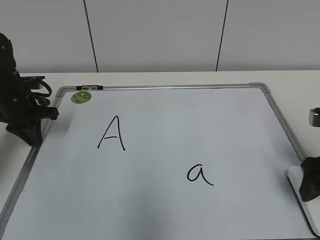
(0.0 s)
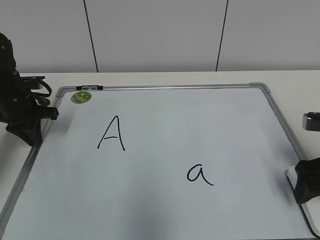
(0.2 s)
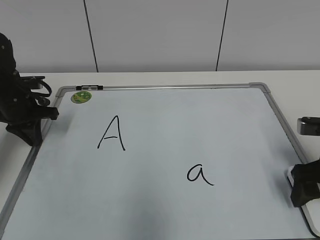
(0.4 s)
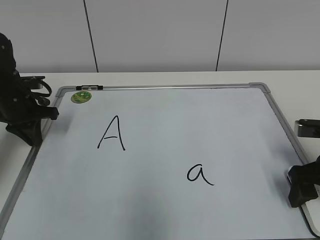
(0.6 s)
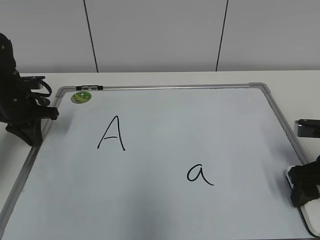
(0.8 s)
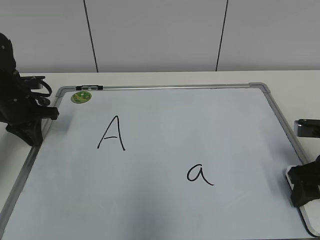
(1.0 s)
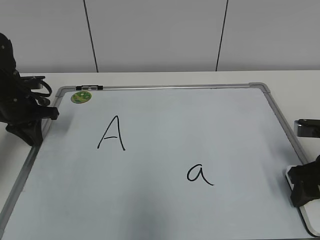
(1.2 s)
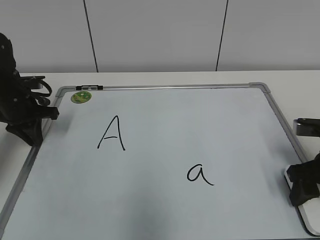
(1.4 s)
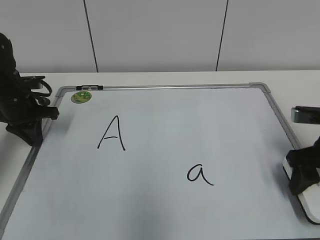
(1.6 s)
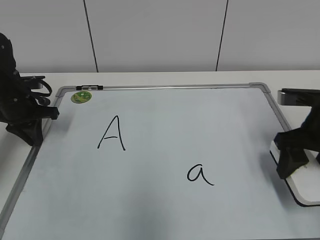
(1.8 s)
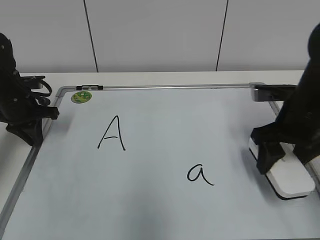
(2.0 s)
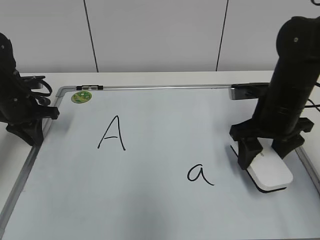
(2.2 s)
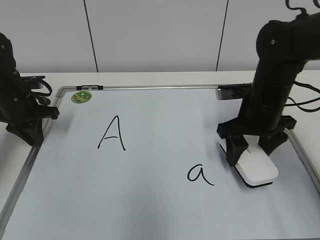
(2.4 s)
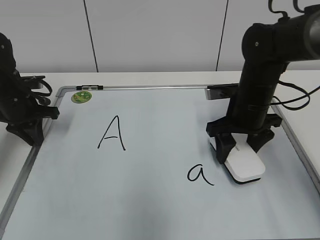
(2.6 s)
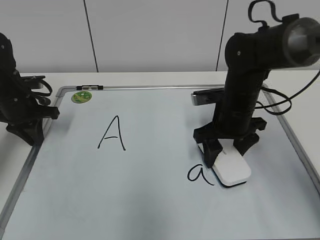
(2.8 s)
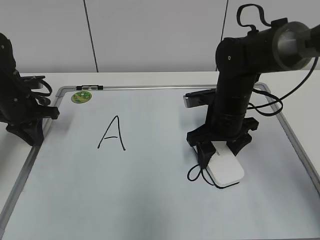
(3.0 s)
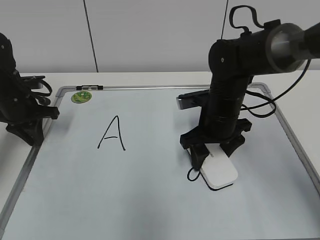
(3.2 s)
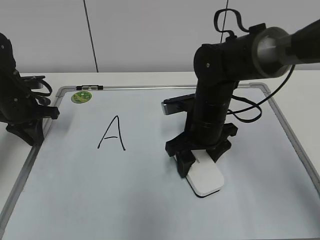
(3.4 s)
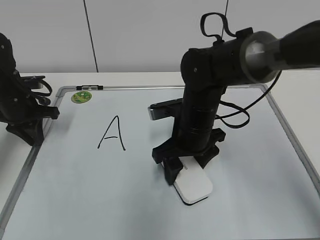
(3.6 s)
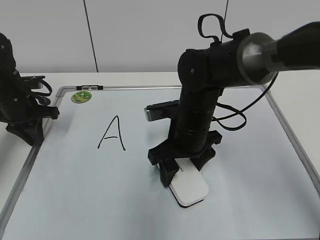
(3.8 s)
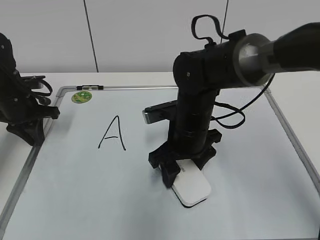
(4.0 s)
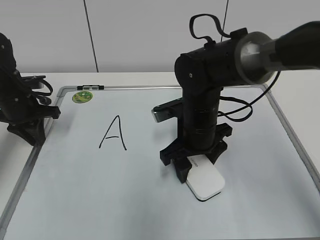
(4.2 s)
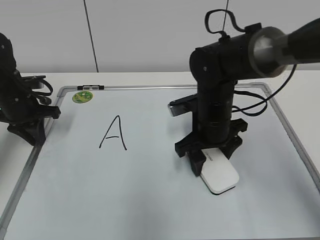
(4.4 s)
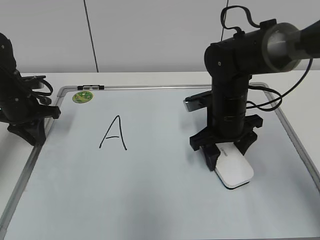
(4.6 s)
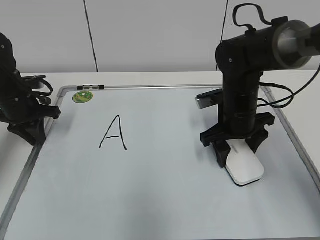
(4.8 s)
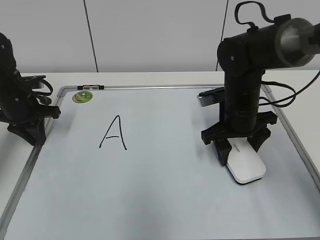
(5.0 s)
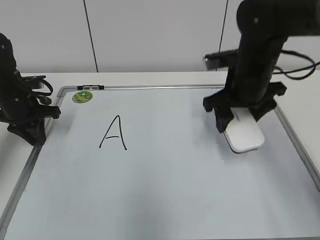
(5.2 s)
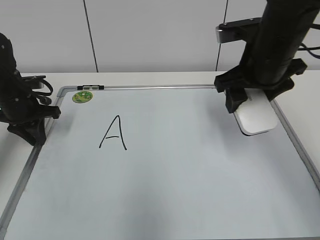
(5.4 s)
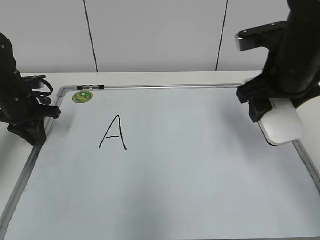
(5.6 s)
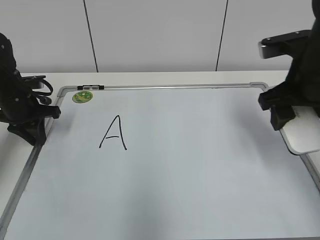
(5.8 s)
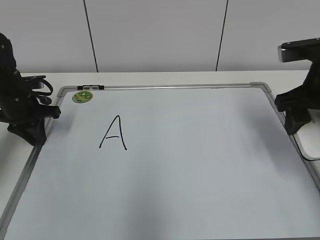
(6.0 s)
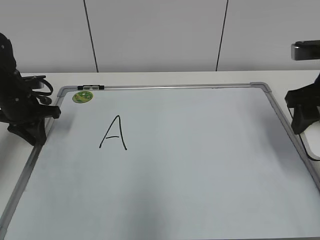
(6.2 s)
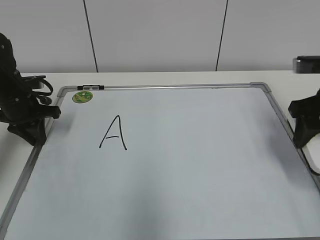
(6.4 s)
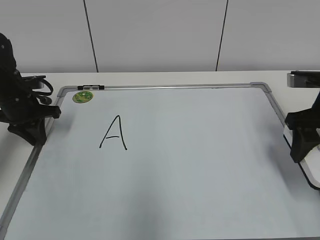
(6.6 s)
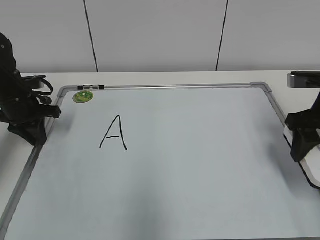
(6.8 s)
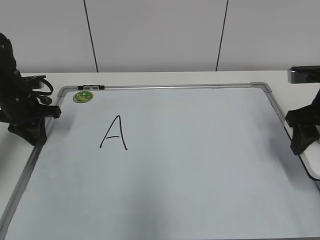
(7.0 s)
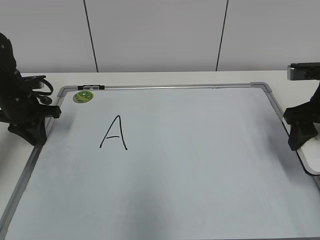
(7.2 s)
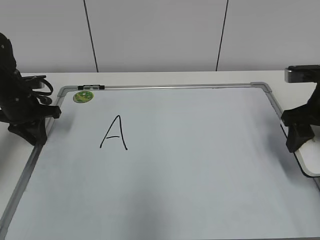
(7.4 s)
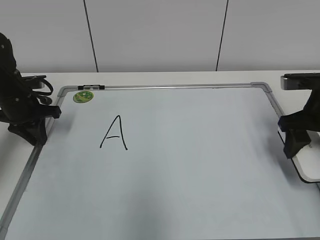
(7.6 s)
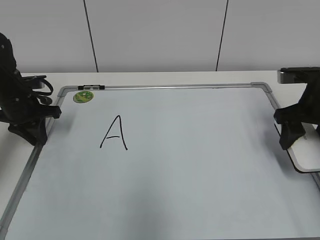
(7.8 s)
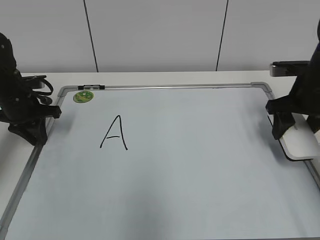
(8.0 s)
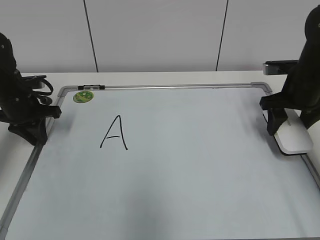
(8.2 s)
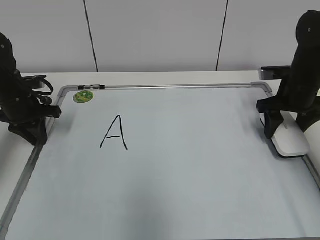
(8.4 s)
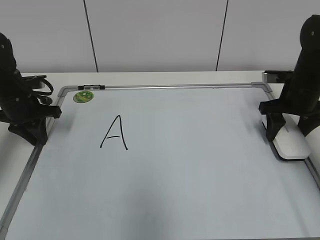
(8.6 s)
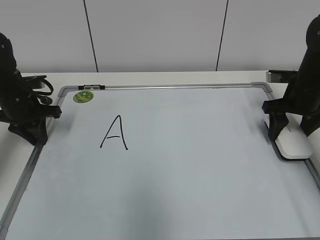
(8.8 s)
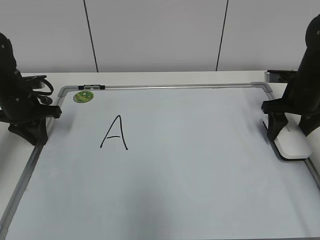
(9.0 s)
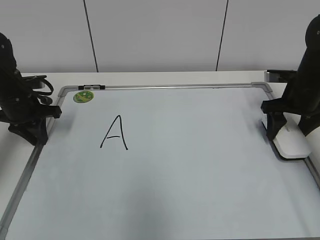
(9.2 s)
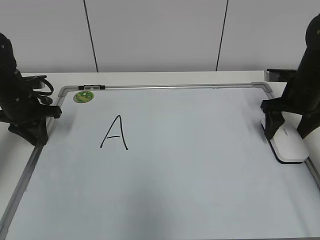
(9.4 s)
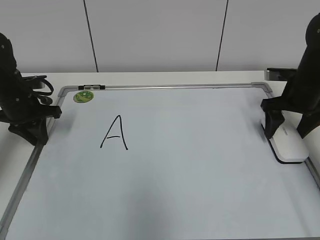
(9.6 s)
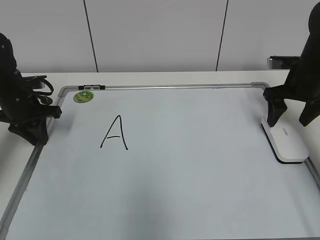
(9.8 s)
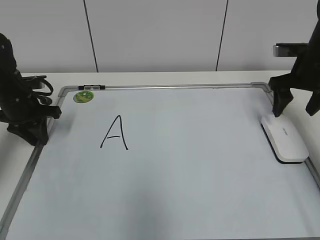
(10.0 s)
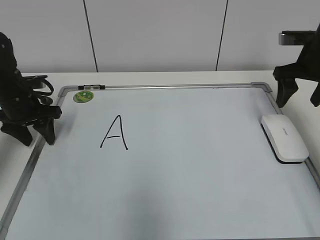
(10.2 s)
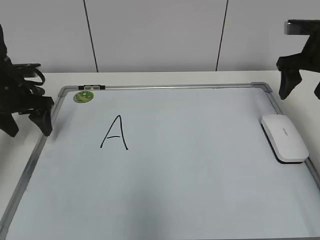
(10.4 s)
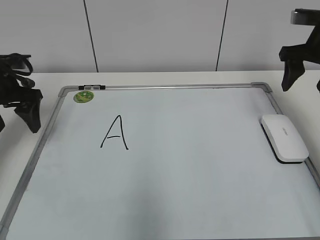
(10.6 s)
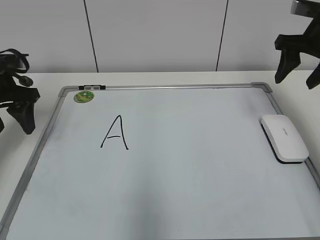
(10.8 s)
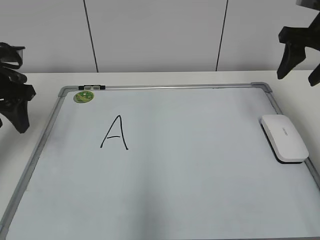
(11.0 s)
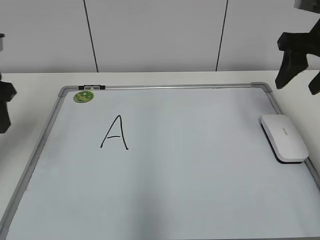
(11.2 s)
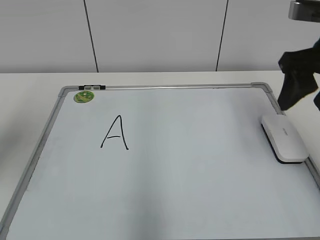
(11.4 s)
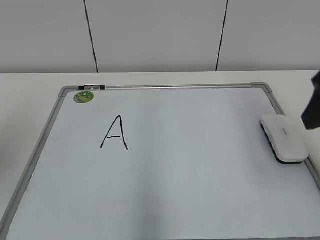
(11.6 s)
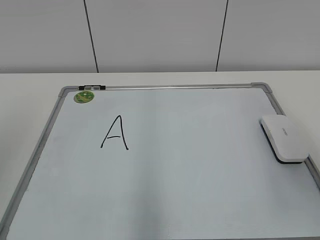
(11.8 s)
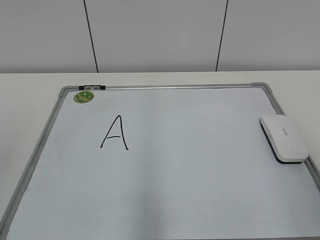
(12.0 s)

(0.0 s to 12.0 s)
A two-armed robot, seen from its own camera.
Task of the whole recording: pick up the eraser on the blackboard and erase the letter "a".
Step, 1.2 s - 4.6 s: Erase the letter a with your right hand.
Step, 4.8 s - 6.4 s: Put down the eraser with your right hand.
Step, 7.2 s - 9.4 s: Put down the eraser with your right hand.
0.0 s - 1.6 s: The right gripper closes up.
1.6 s - 3.0 s: The right gripper goes about 20 cm to the left and forward.
4.4 s - 6.0 s: The right gripper heads to the right and upward, covering about 20 cm.
6.0 s - 7.6 s: The right gripper goes some 5 cm downward.
7.6 s - 9.0 s: The right gripper heads forward, covering about 10 cm.
9.0 s - 10.4 s: The right gripper shifts some 10 cm upward, and opens its fingers. Meanwhile the left gripper opens.
10.4 s - 12.0 s: The left gripper heads backward and upward, covering approximately 35 cm, and closes its fingers, while the right gripper shifts approximately 30 cm backward, and closes.

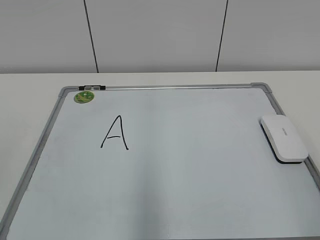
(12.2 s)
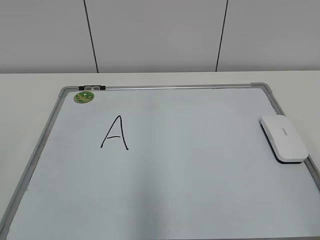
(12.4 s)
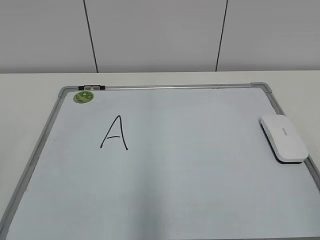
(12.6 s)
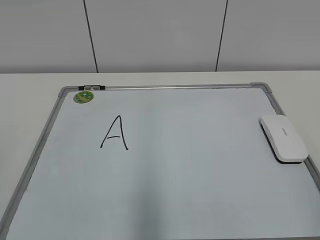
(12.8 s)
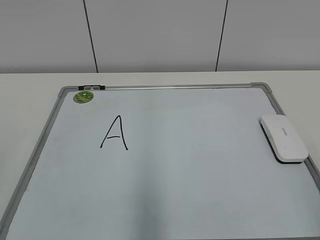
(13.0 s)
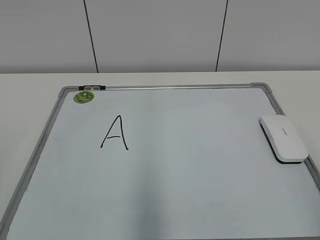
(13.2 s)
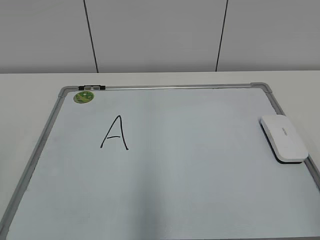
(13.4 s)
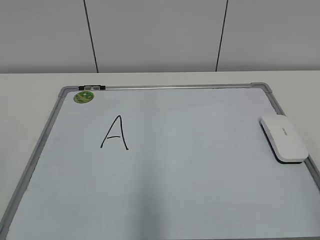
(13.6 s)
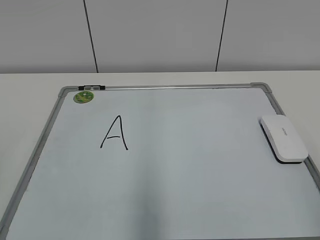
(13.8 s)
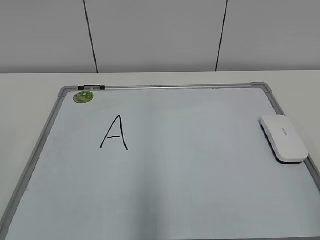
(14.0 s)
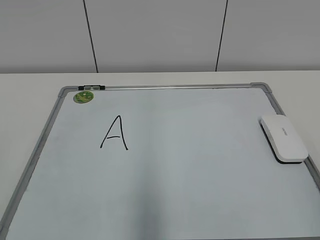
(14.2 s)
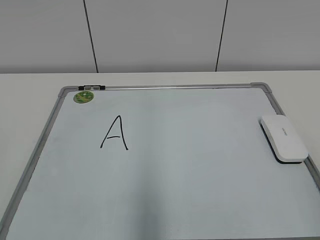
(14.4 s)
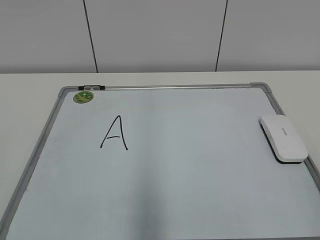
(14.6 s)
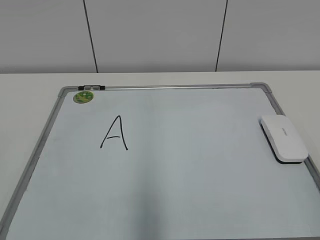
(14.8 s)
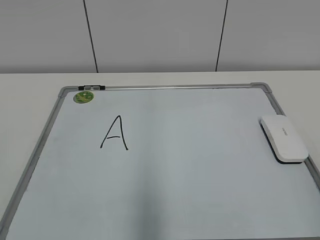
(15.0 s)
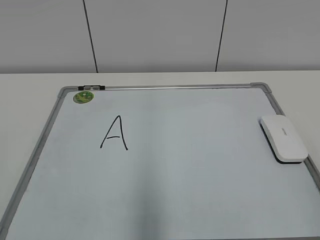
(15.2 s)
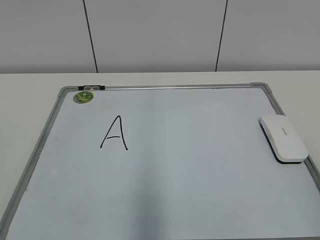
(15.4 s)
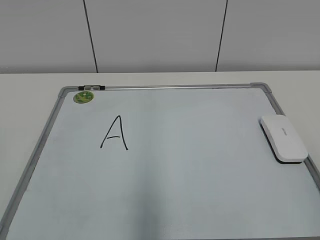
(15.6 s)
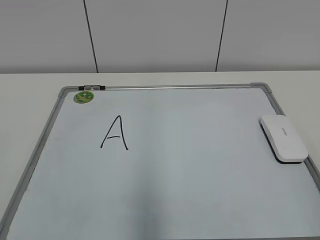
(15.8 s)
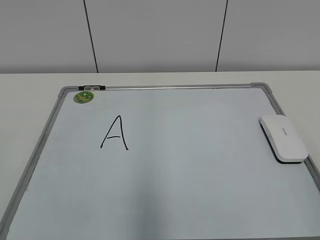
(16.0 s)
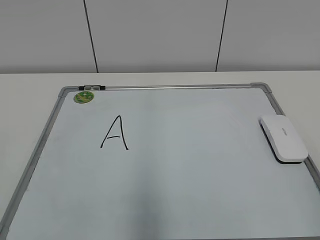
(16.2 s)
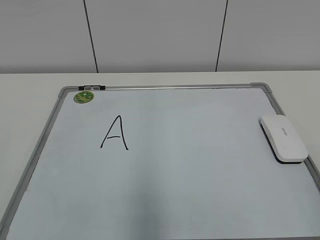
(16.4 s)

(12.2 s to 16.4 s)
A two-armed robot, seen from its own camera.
Task of the whole recording: pick up the eraser on the blackboard and erase the letter "a".
15.0 s - 16.4 s: The two grippers keep their place.

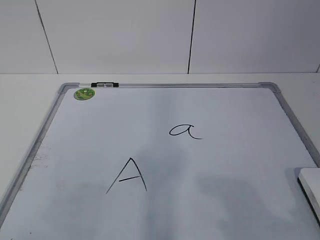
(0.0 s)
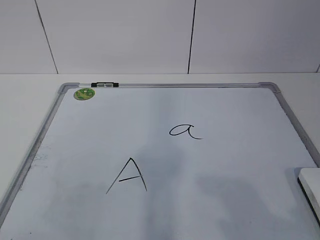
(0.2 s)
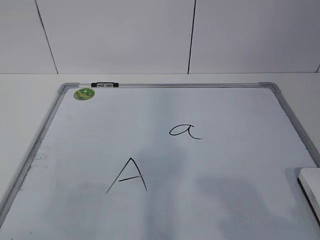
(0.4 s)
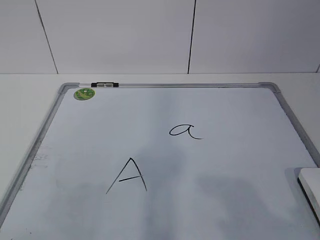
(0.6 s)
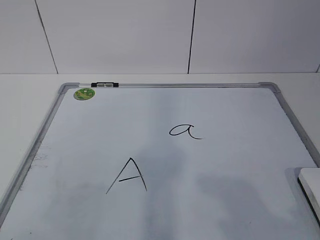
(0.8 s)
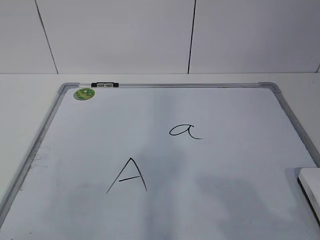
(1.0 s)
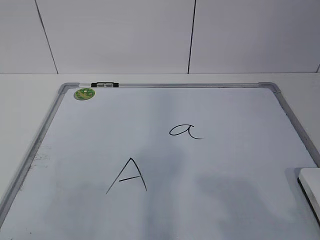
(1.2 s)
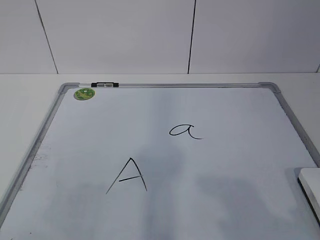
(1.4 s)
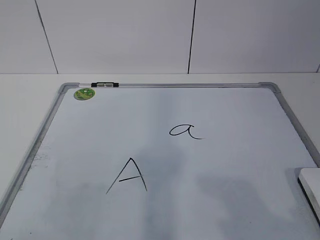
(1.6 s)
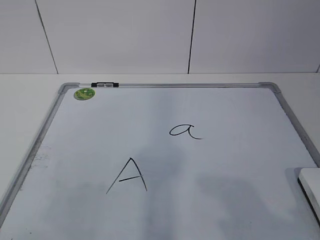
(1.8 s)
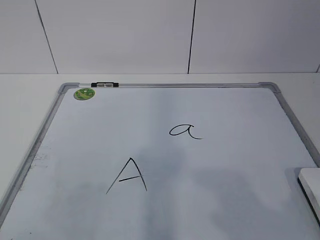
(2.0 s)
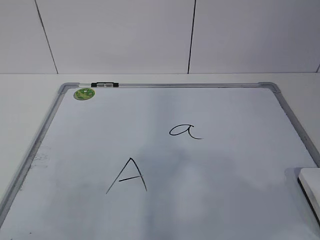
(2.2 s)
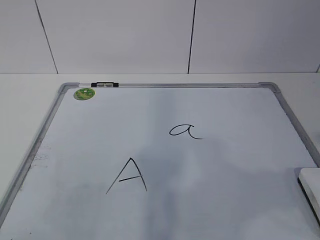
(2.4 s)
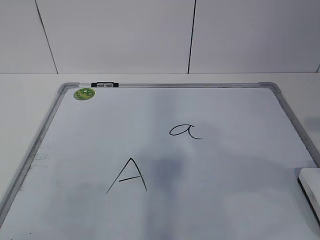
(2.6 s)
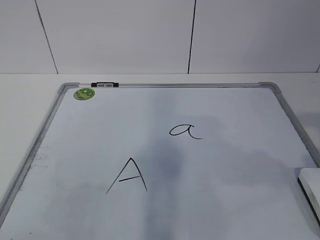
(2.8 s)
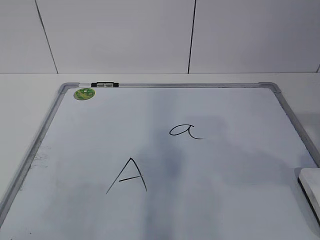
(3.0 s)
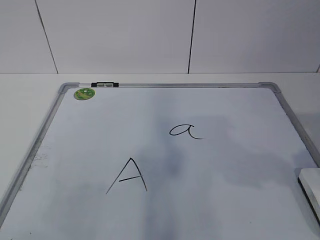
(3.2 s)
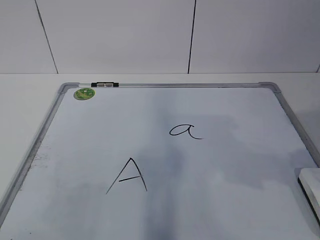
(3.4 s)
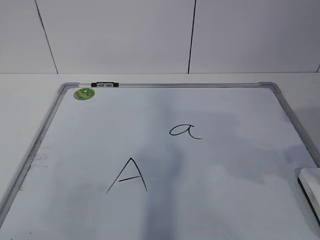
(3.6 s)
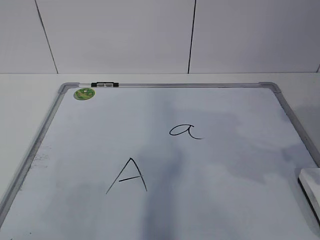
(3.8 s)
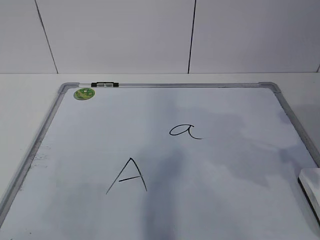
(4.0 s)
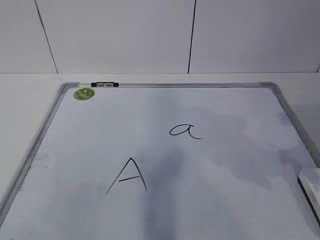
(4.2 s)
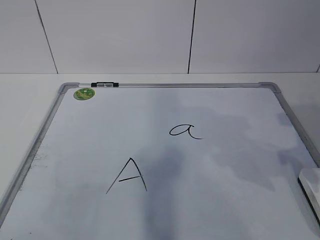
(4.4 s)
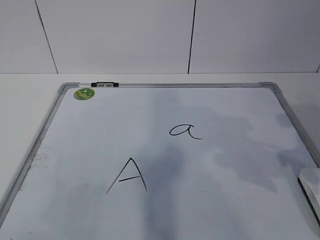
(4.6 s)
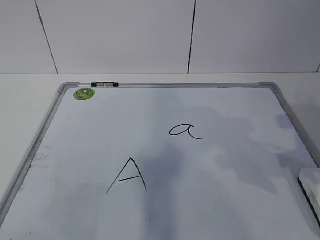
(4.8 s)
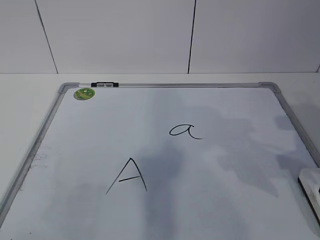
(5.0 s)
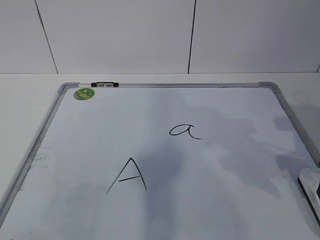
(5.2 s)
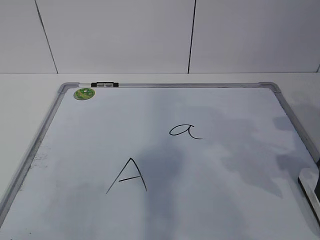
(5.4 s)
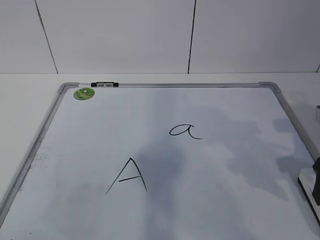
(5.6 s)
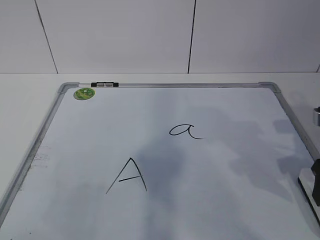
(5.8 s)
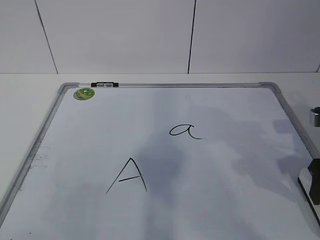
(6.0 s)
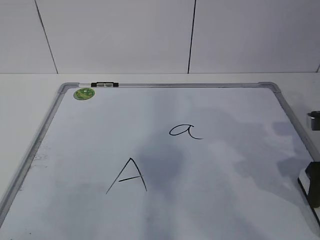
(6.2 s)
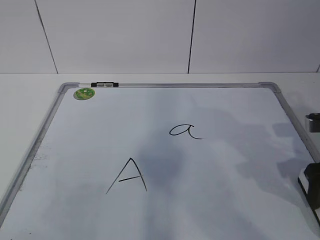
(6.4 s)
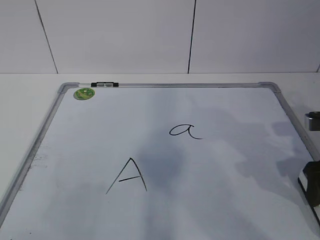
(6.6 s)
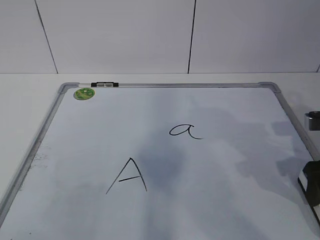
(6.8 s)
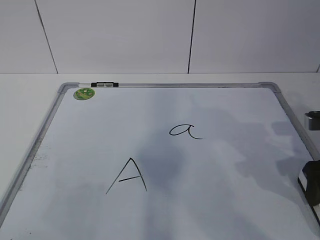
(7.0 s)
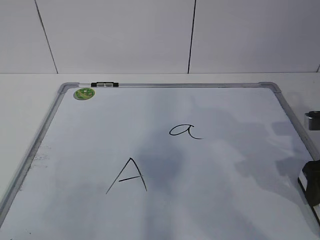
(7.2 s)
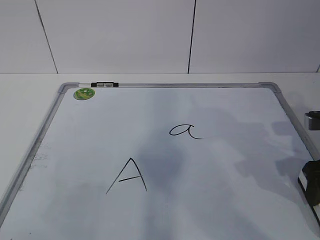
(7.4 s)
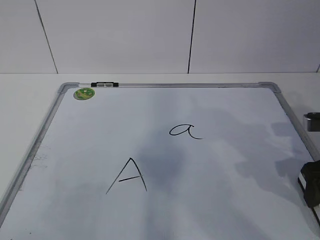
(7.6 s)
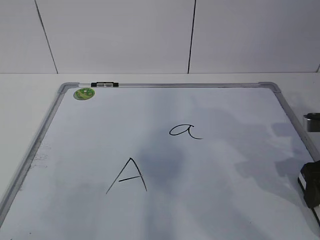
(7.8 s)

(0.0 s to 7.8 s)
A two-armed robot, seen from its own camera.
Task of the whole recording: pick up the eraser on the blackboard and erase the letter "a".
4.6 s - 6.2 s: The right gripper is displaced downward by about 5 cm, and opens.
6.2 s - 7.8 s: The two grippers keep their place.
